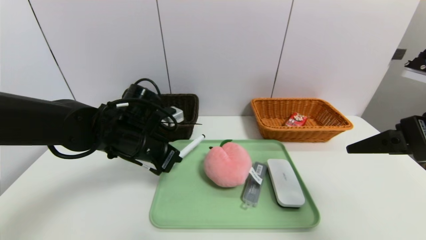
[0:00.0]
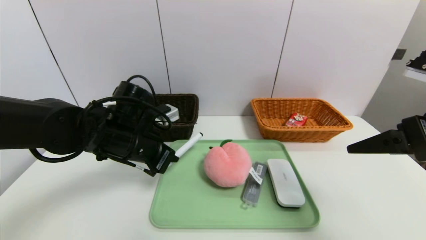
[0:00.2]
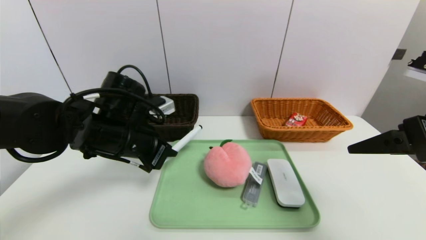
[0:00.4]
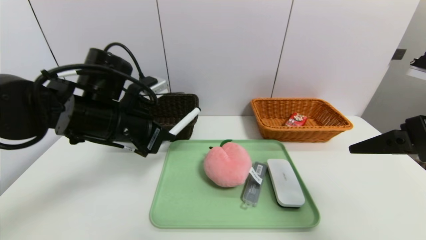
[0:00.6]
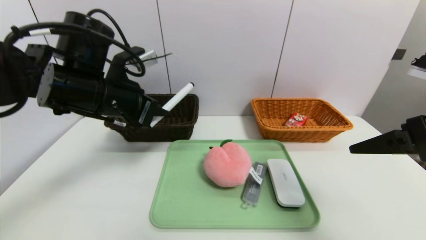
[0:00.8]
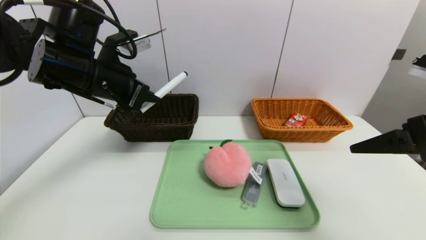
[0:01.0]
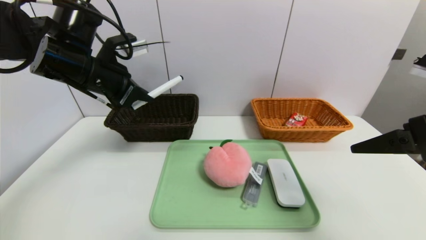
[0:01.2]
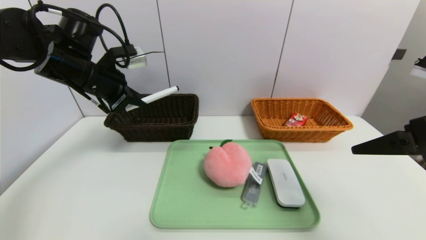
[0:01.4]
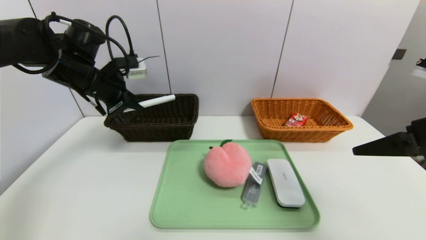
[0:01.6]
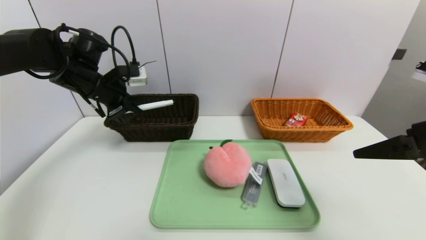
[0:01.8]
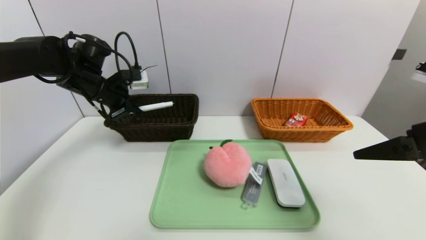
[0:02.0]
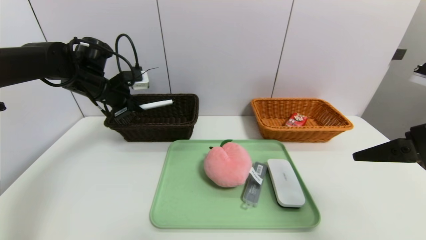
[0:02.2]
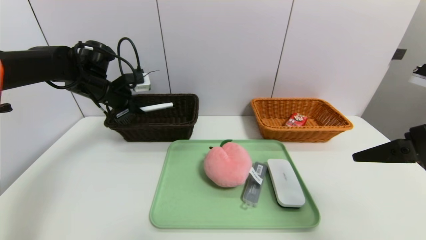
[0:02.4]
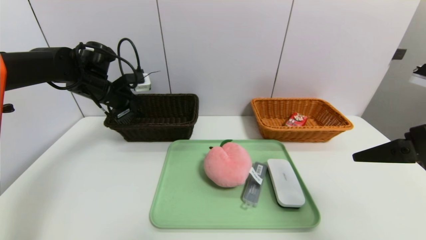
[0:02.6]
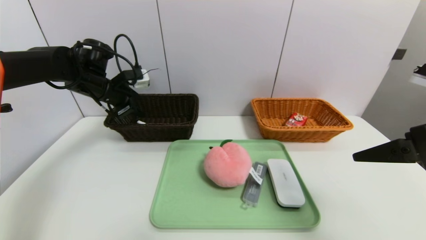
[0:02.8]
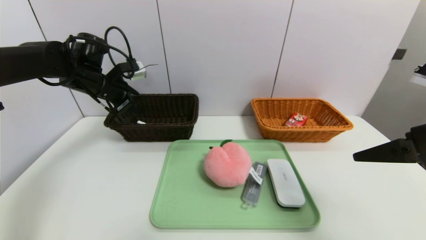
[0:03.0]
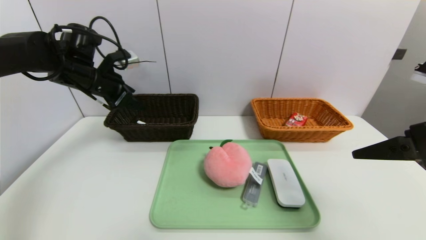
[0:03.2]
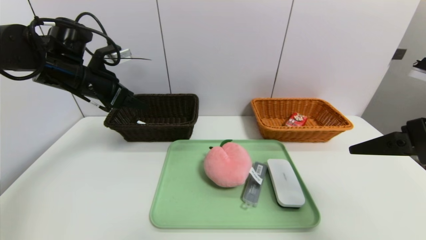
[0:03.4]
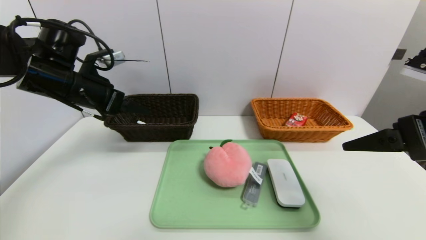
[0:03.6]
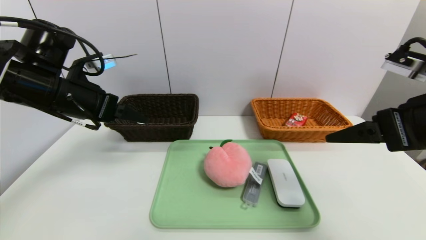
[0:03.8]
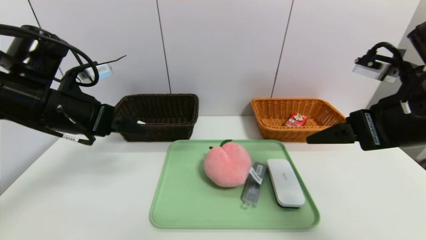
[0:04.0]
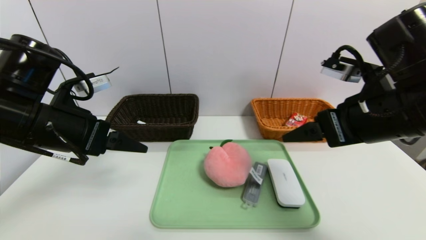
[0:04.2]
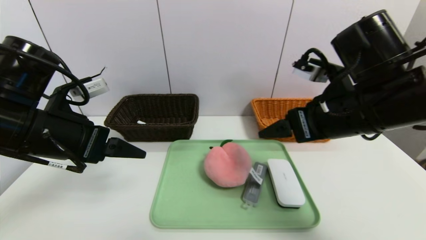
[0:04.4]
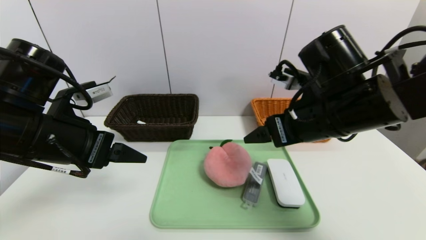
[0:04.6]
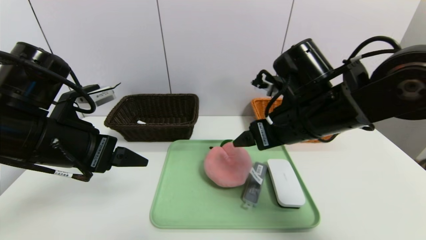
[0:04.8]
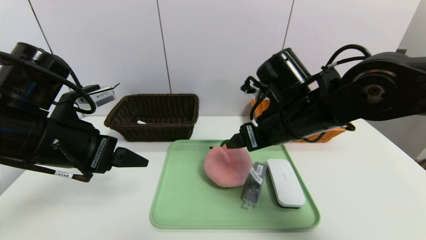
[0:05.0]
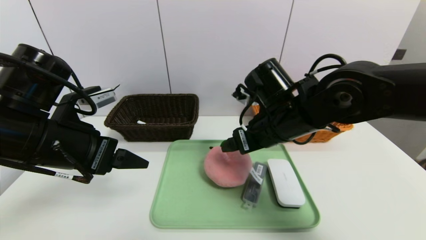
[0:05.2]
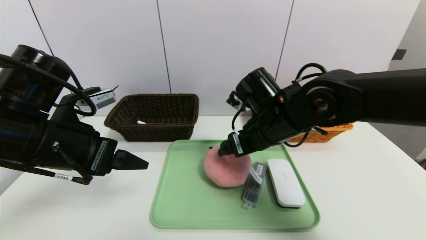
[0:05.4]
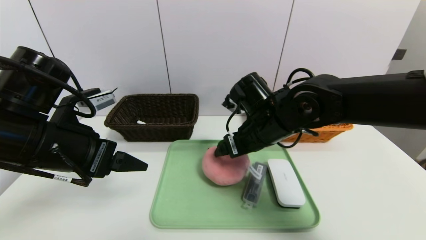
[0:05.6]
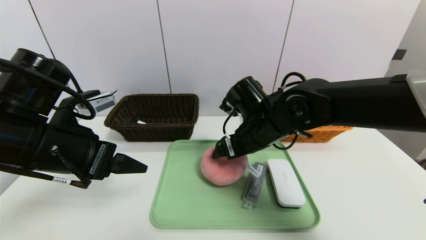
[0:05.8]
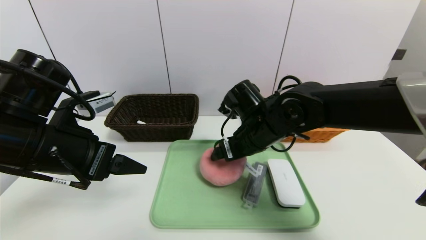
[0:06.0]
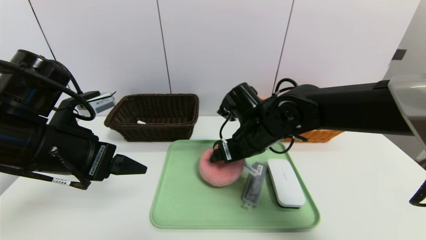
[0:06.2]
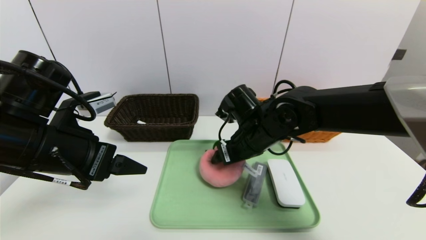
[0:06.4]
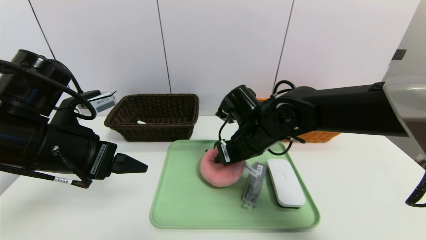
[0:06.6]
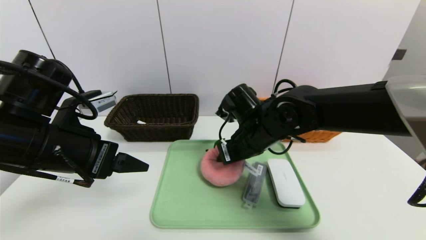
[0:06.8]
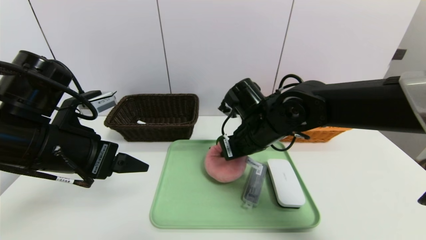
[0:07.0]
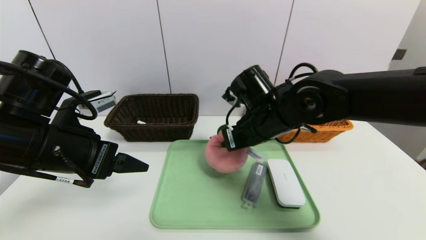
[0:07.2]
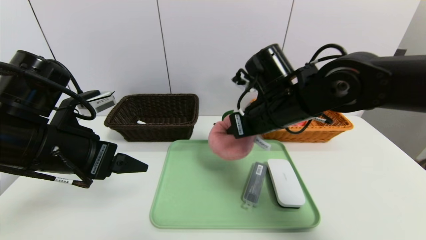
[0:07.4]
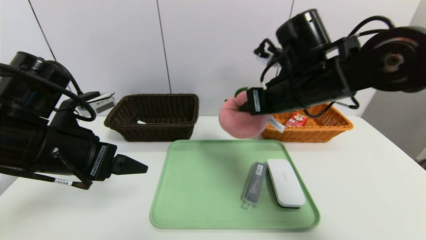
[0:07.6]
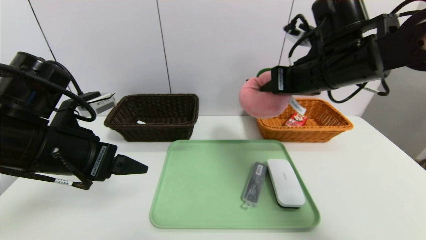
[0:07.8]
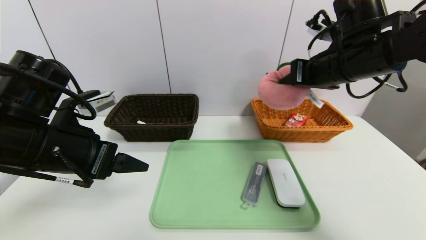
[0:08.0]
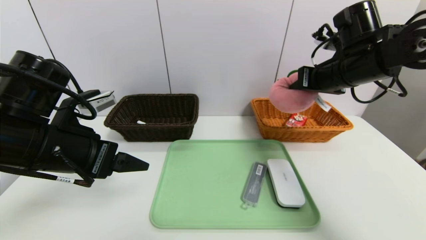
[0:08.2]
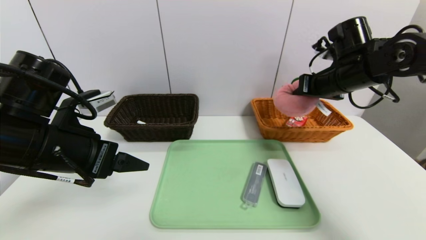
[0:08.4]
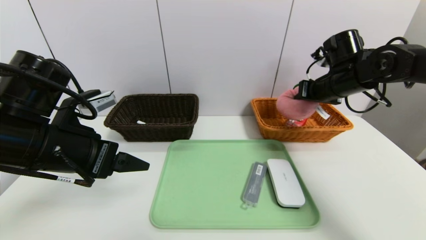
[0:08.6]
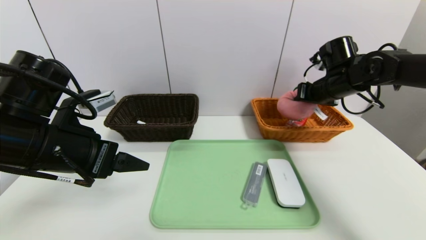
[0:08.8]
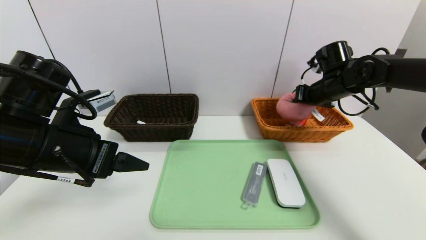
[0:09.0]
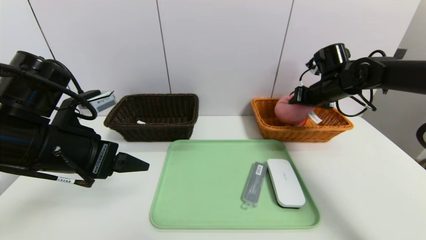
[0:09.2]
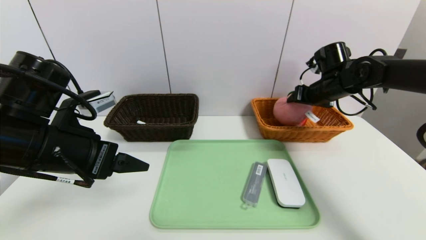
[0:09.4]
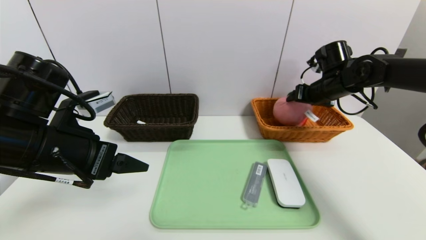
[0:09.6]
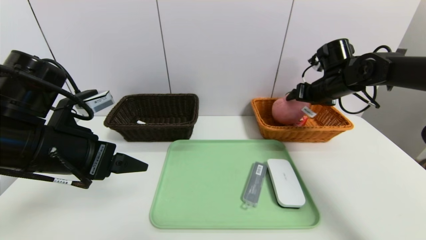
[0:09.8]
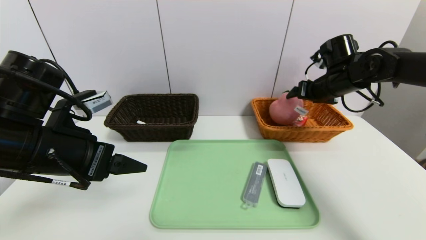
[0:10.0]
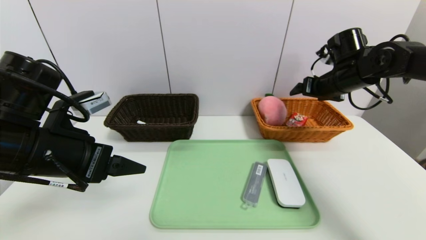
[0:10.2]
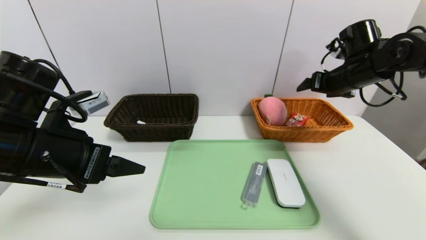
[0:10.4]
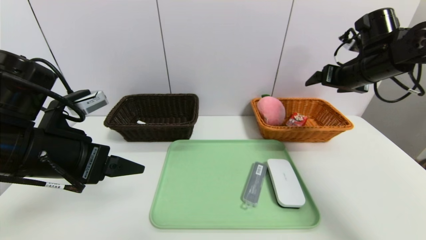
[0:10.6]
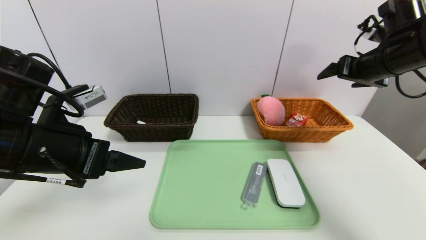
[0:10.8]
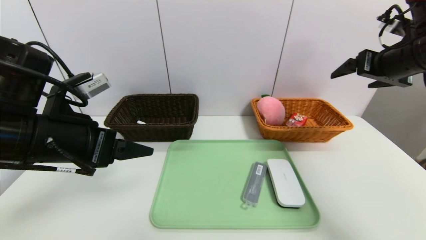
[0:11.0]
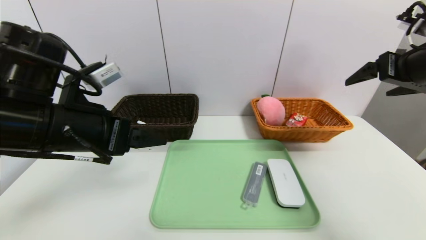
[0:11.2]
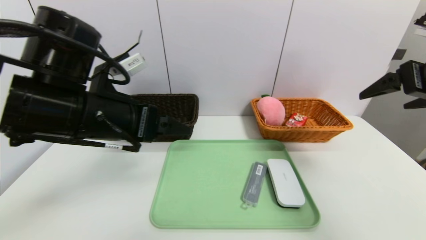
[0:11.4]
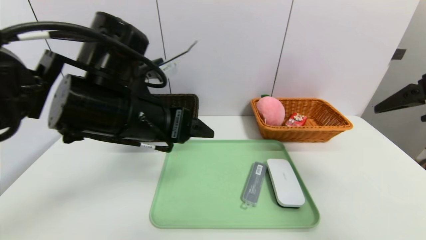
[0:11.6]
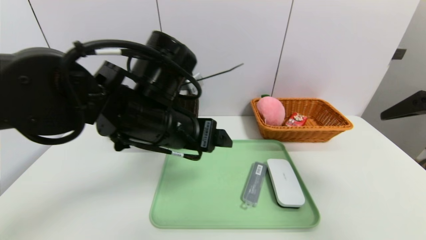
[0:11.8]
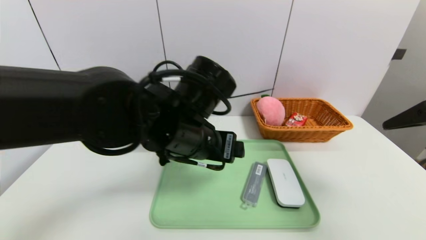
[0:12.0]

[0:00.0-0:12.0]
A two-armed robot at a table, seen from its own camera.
Task of the whole recording: place the food in the right basket with the right gripper, and place the non food items in the left basket with the left gripper.
Step, 0:00.0 to 0:03.0: Grasp the black marker and put it in the left basket.
Step, 0:03.2 to 0:10.2: Grasp the peach doll and put it in the right basket.
0:00.0 to 0:01.6: The left gripper goes some 15 cm to the left, upward and forward.
0:01.6 to 0:03.0: The left gripper changes place by about 5 cm, and opens up.
0:03.0 to 0:04.4: The left gripper goes some 20 cm backward, while the right gripper travels to the left and forward by about 15 cm.
0:04.4 to 0:06.0: The right gripper goes about 15 cm to the left, downward and forward.
0:06.0 to 0:07.6: The right gripper heads upward and to the right, covering about 15 cm, and closes up.
0:07.6 to 0:09.0: The right gripper moves to the right, forward and downward, some 20 cm.
0:09.0 to 0:10.4: The right gripper ends up roughly 5 cm from where it was, and opens.
0:10.4 to 0:12.0: The left gripper shifts about 20 cm to the right; the right gripper travels backward by some 25 cm.

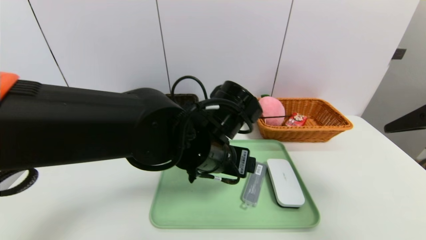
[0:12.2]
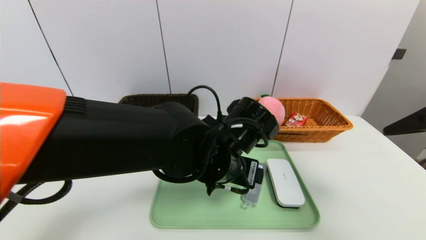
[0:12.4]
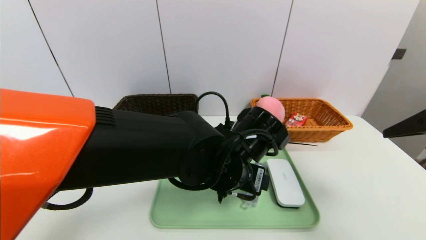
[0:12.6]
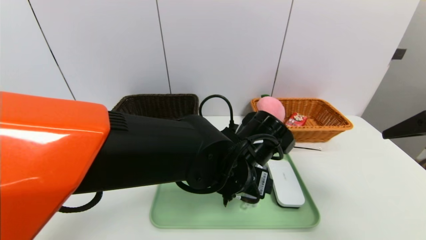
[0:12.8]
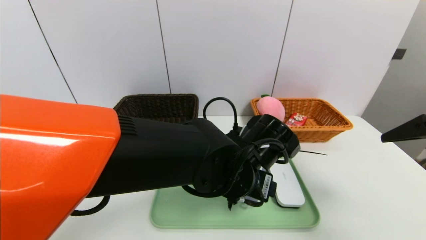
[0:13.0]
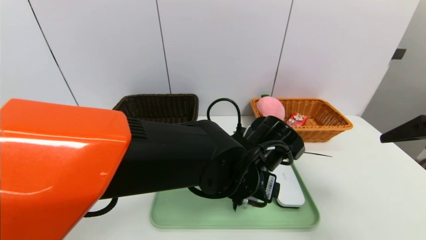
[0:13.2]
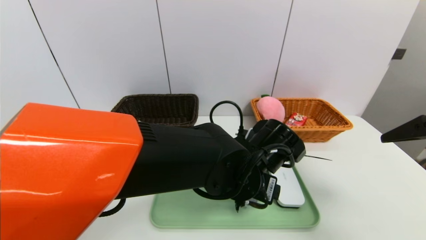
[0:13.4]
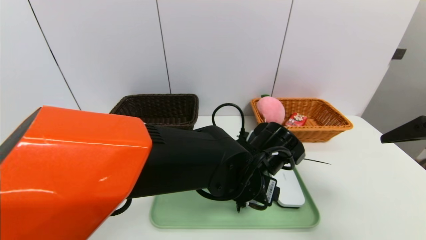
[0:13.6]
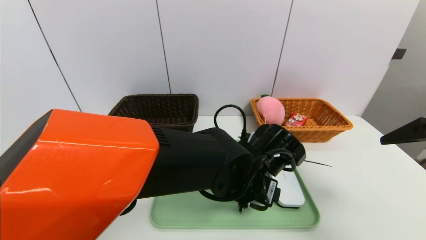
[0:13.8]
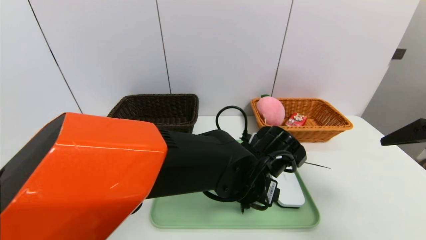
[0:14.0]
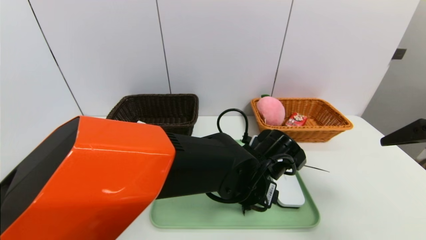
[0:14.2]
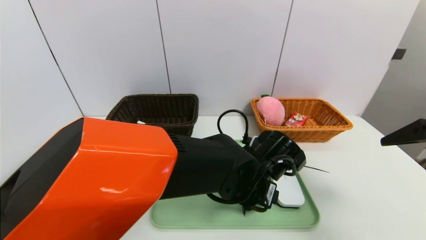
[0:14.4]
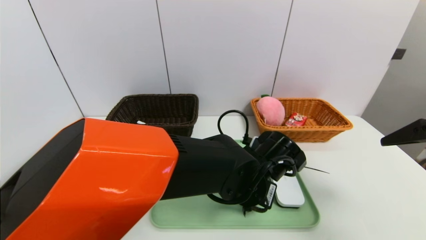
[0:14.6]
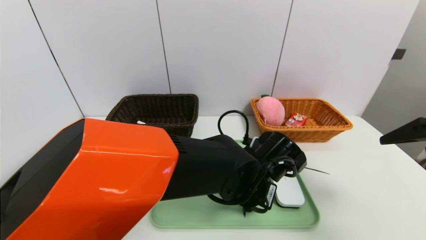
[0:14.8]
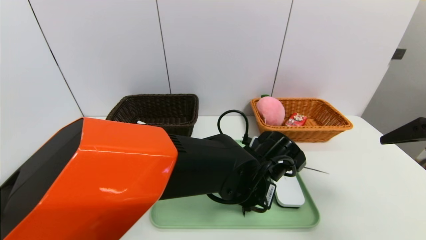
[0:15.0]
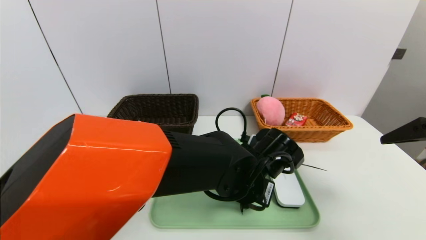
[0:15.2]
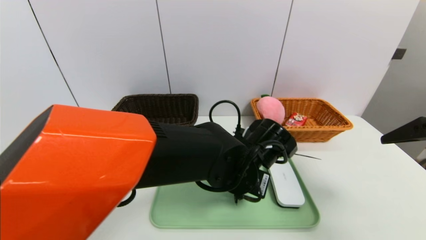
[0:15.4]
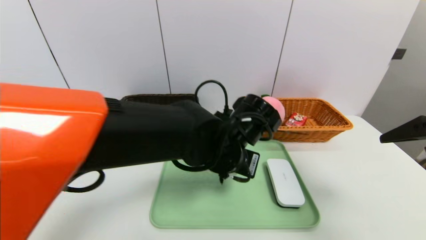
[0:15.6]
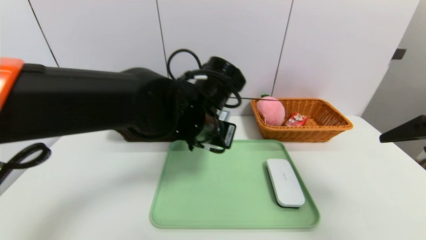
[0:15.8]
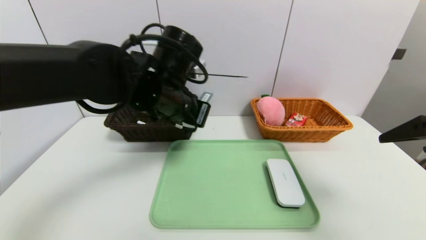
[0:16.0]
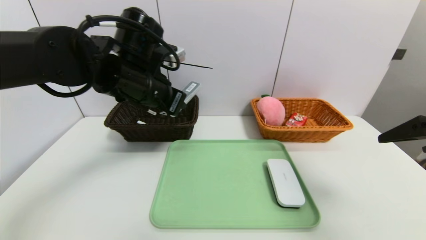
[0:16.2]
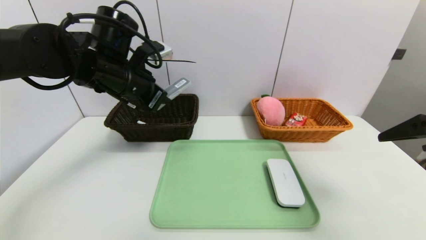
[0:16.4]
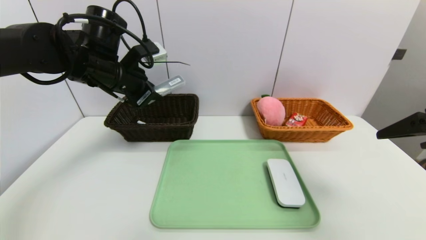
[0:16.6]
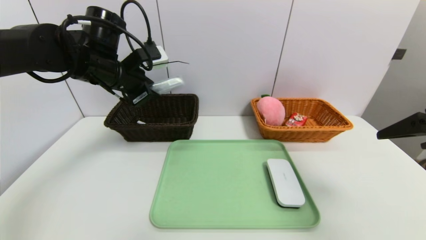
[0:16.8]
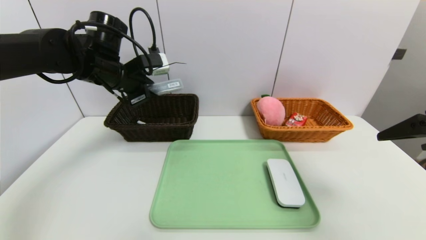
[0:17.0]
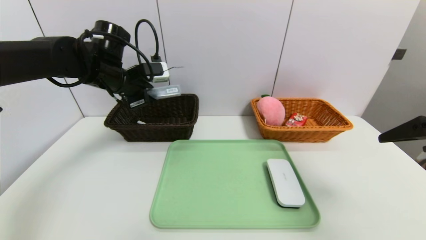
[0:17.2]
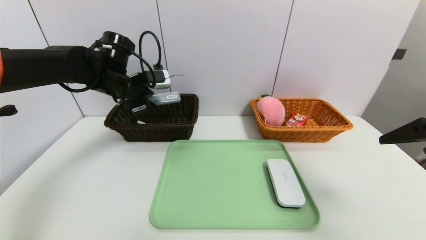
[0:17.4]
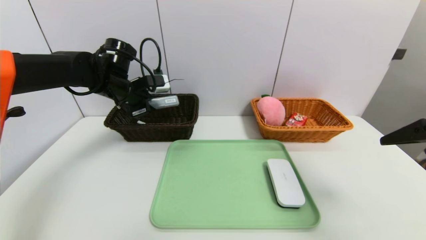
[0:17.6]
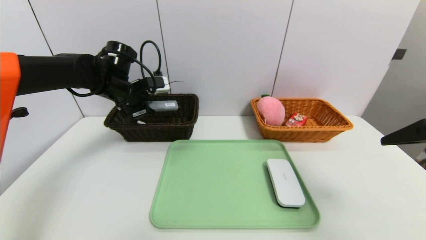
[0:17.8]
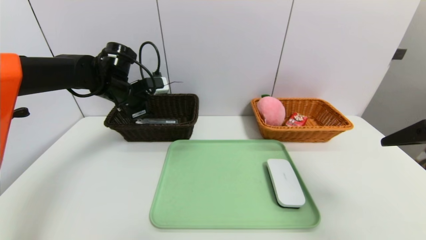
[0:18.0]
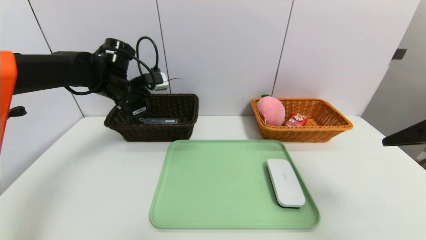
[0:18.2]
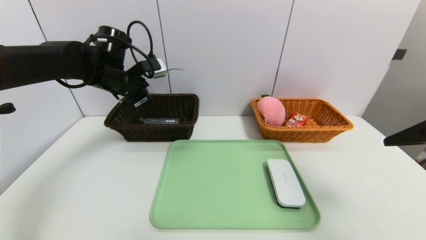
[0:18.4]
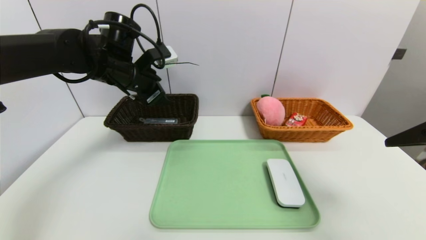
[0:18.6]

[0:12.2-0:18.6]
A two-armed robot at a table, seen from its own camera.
Task of the whole recording: place the food in the right basket with the right gripper, and place the non food items in the left basket with the left gripper.
Step, 0:12.2 to 0:18.4: Grasp the compass and put it in the left basket.
0:12.2 to 0:13.8: The left gripper travels to the right and downward by about 10 cm.
0:13.8 to 0:15.4: The left gripper closes up.
0:15.4 to 0:17.0: The left gripper shifts some 30 cm to the left, upward and forward.
0:17.0 to 0:18.6: The left gripper opens up.
